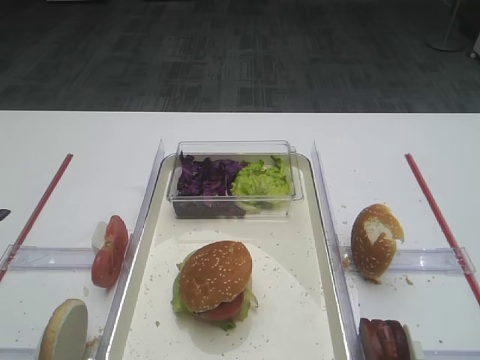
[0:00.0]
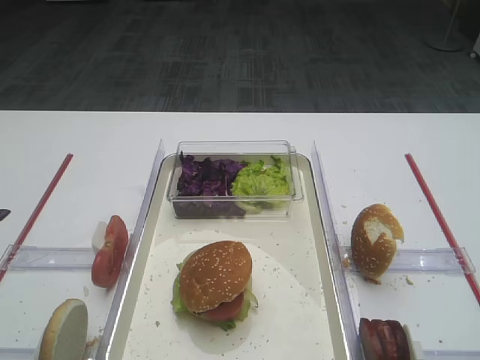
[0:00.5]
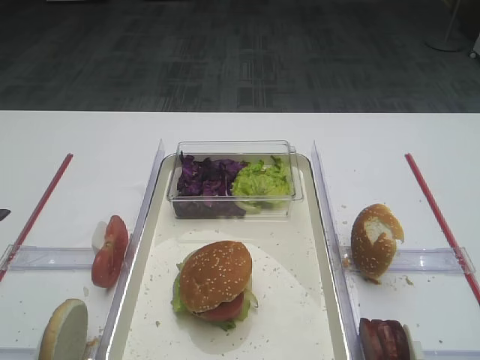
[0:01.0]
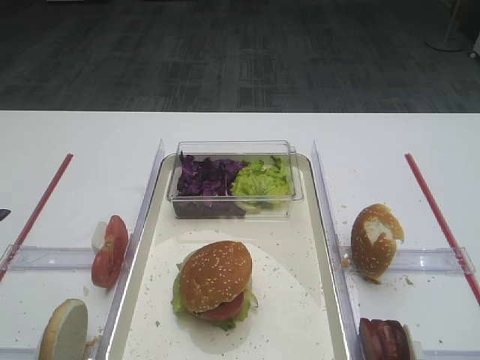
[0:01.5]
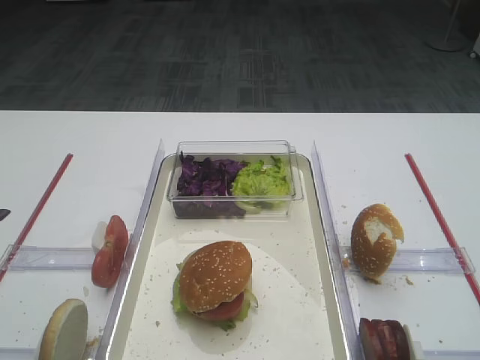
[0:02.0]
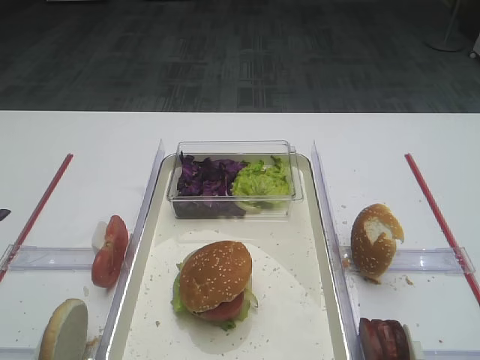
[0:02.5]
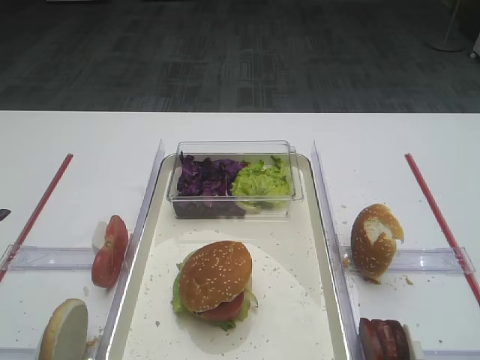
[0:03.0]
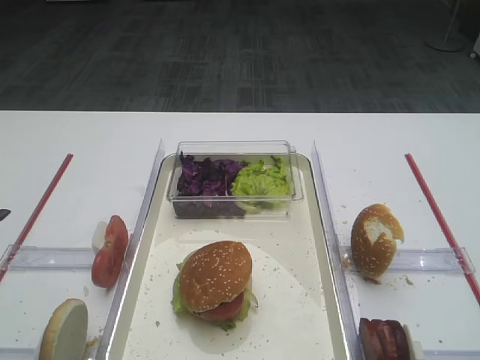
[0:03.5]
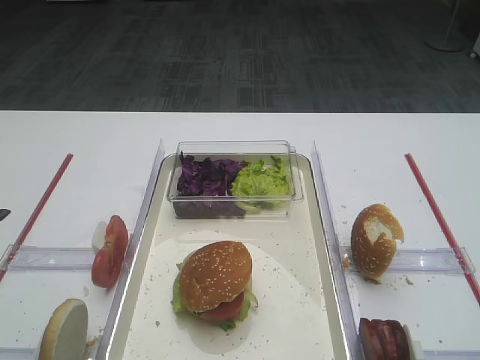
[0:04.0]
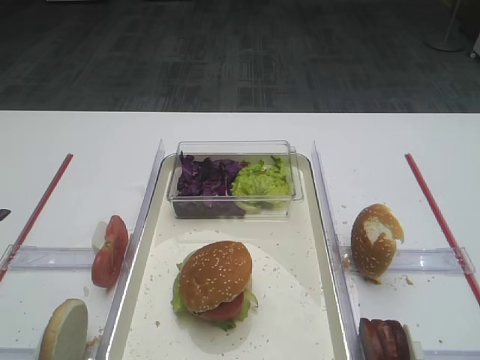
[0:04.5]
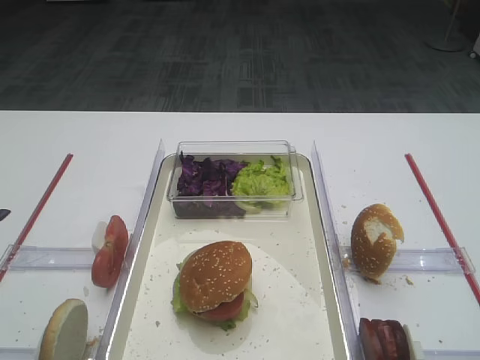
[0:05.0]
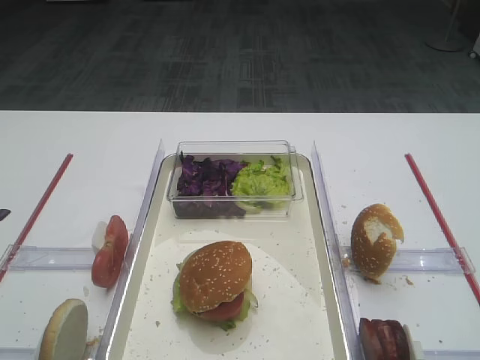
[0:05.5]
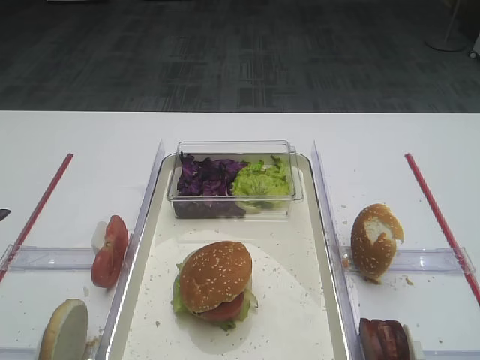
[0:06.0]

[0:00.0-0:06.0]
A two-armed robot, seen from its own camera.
0:00.0 to 0:06.0: Both grippers stay put.

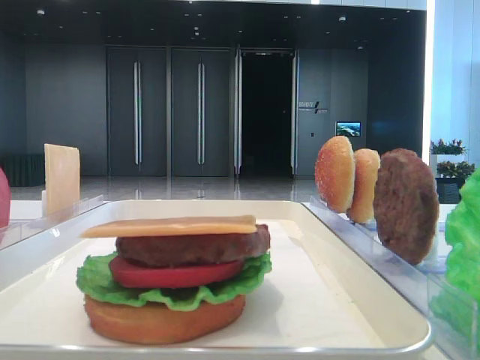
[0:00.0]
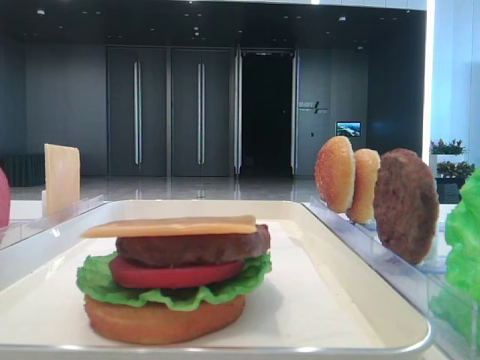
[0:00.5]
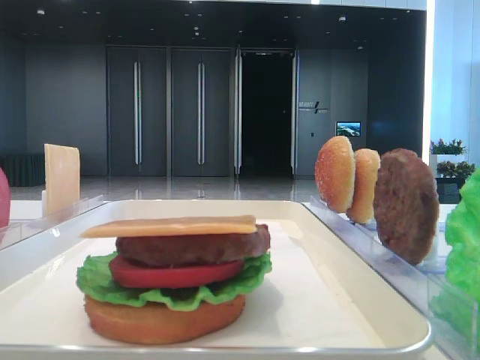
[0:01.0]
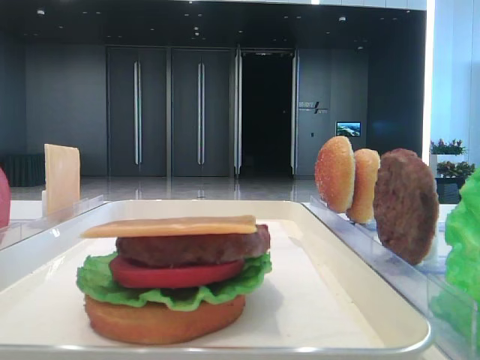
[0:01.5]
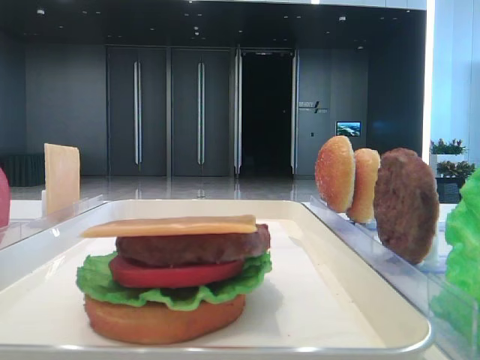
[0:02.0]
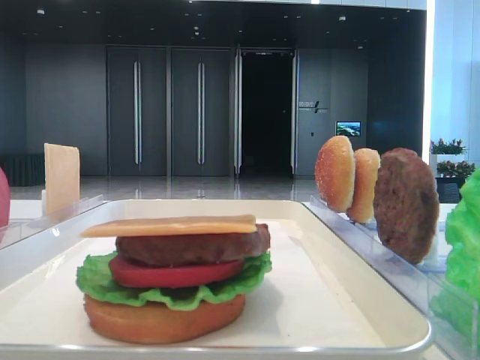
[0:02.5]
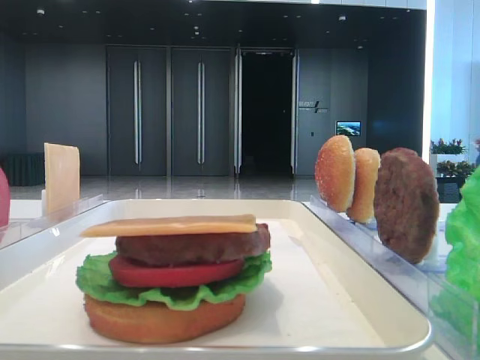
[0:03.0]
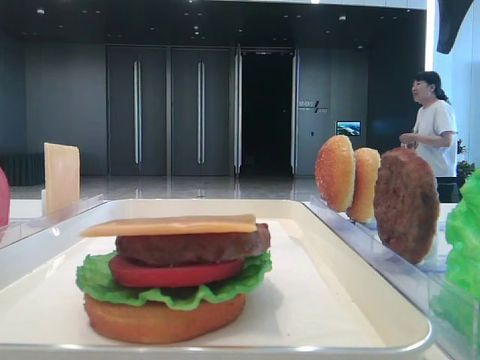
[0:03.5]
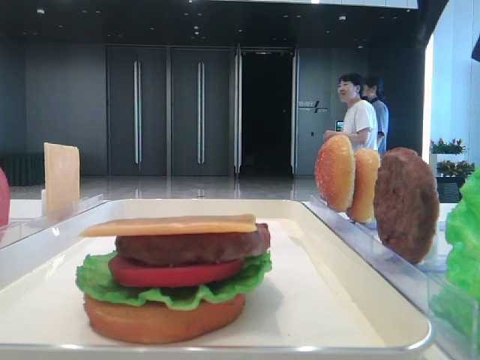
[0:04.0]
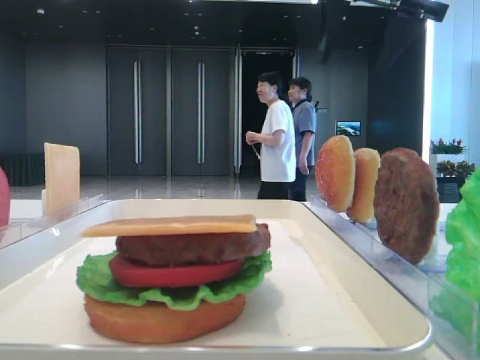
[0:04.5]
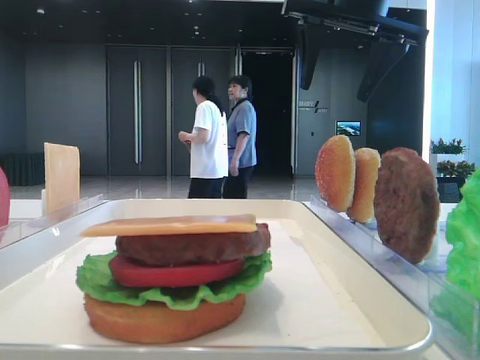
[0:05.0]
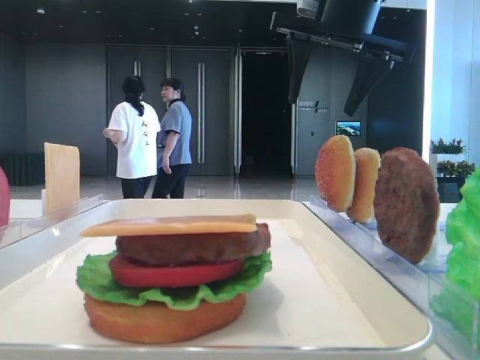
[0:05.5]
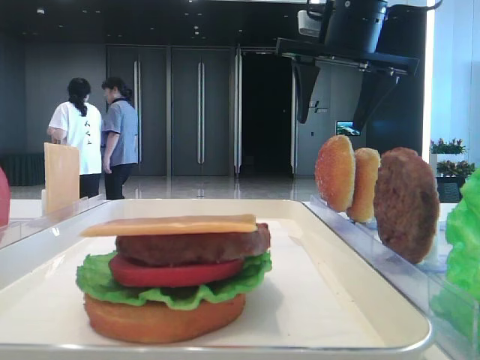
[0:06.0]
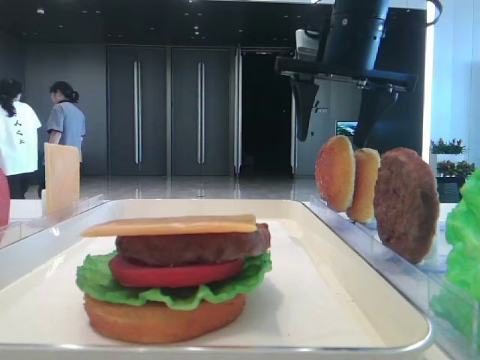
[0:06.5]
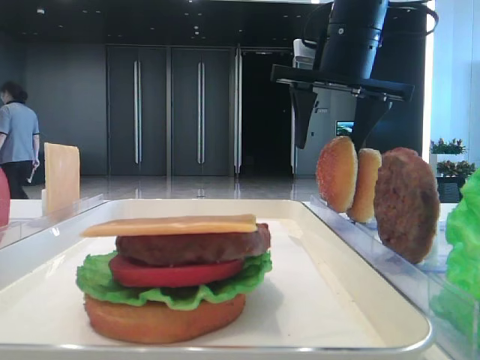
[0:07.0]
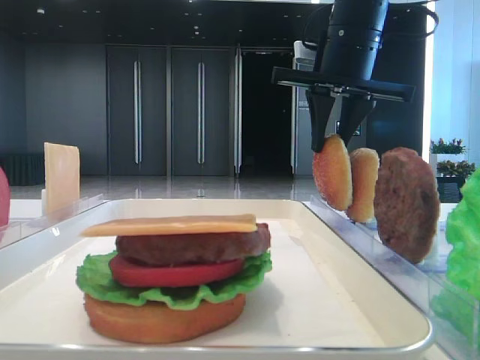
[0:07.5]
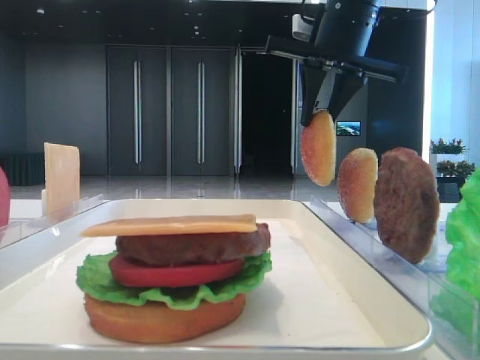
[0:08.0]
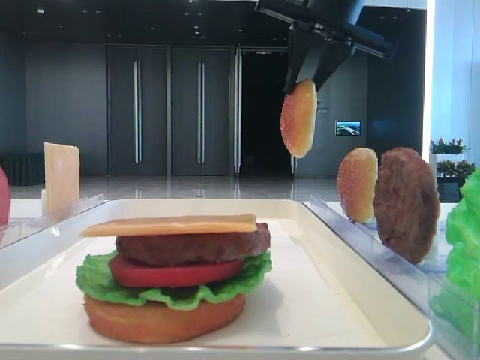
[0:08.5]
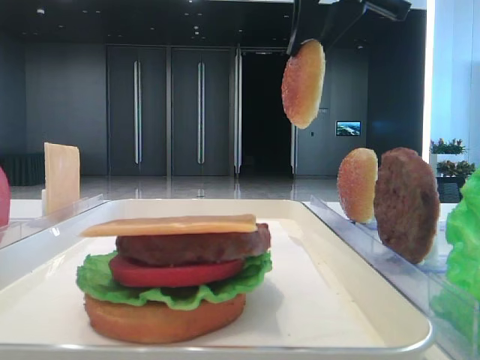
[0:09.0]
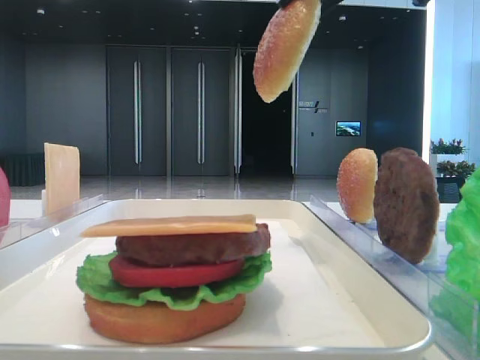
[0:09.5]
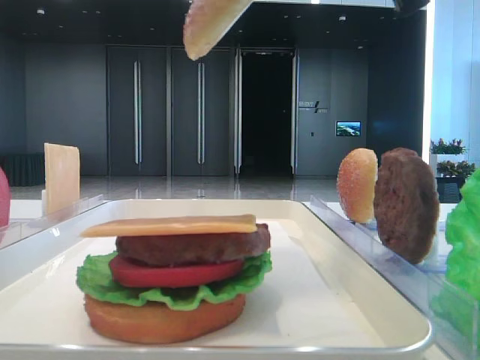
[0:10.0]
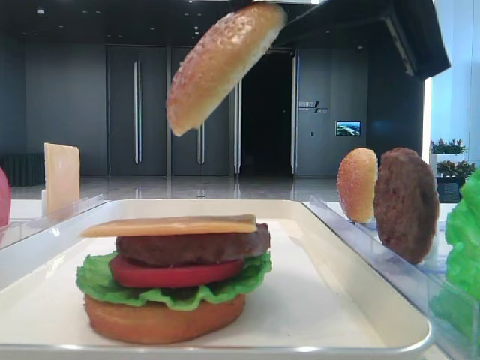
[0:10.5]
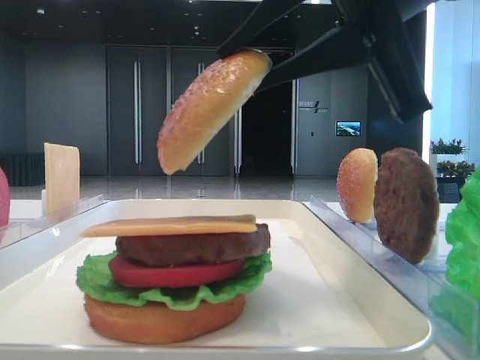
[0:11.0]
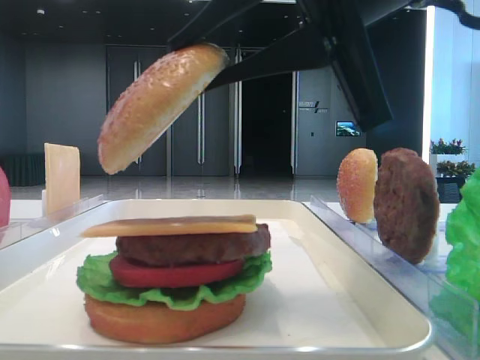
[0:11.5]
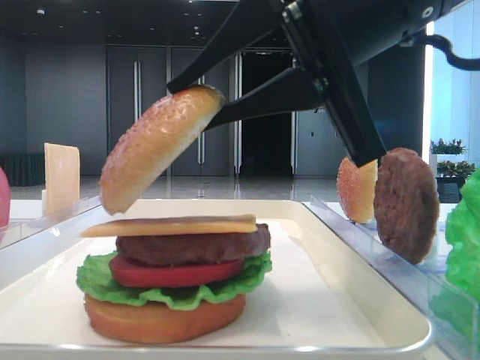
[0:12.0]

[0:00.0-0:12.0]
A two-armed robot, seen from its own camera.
Step, 0:00.0 to 0:07.5: Pick up the top bread slice with the right hand.
0:02.0 to 0:04.0: The right gripper goes approximately 35 cm forward.
0:04.0 to 0:06.0: The right gripper heads to the left and downward, covering approximately 15 cm.
0:06.0 to 0:08.0: The right gripper closes its fingers.
0:08.0 to 0:10.0: The right gripper is displaced backward by some 20 cm.
0:10.0 to 0:12.0: The right gripper goes some 10 cm downward.

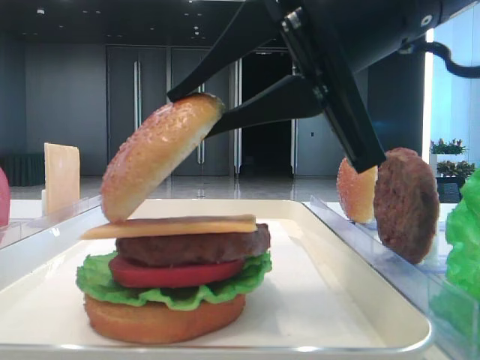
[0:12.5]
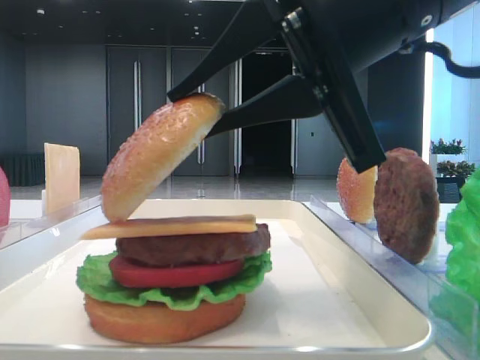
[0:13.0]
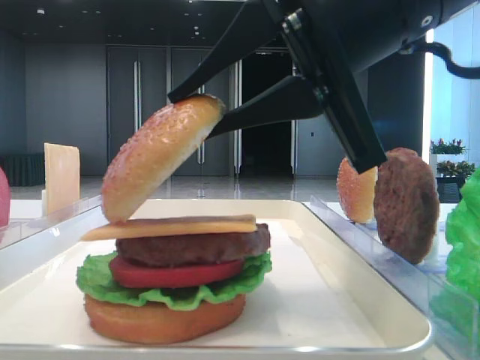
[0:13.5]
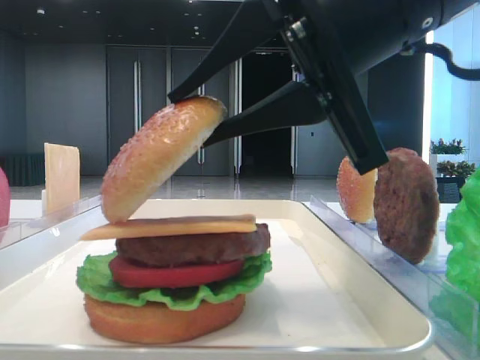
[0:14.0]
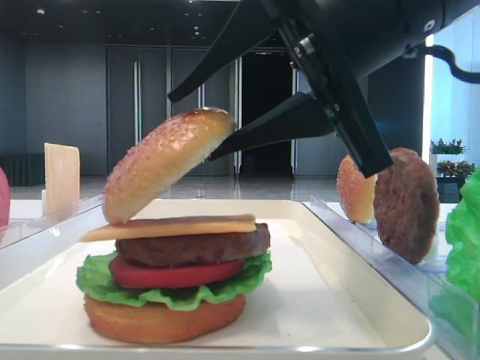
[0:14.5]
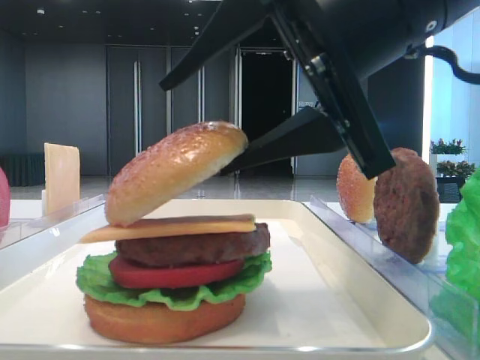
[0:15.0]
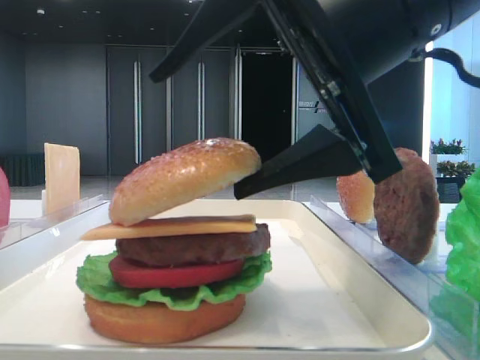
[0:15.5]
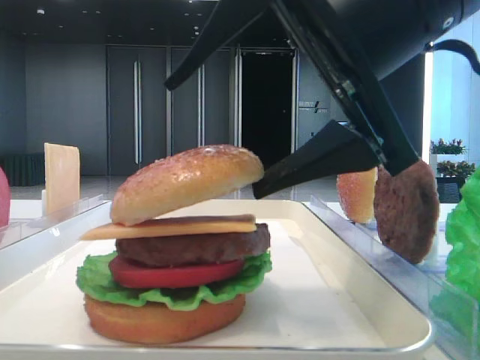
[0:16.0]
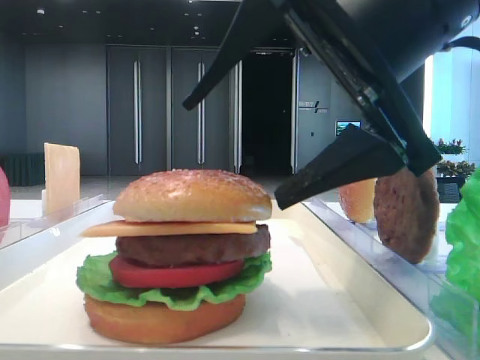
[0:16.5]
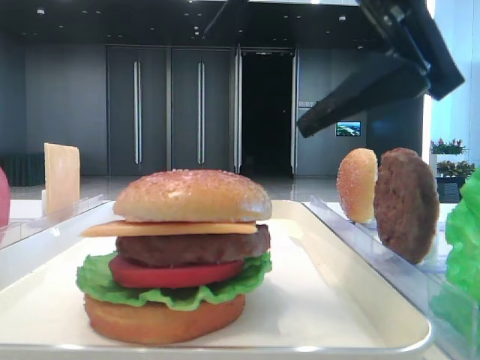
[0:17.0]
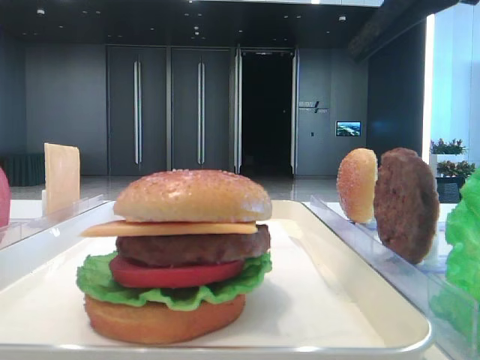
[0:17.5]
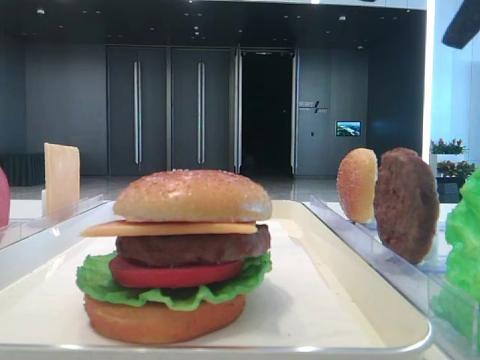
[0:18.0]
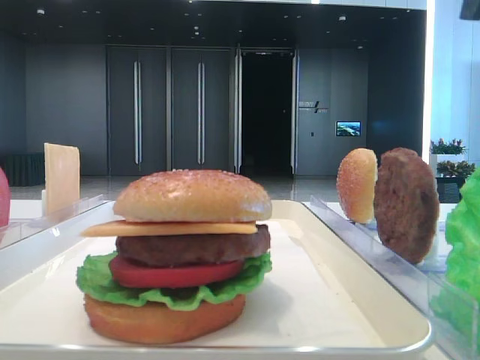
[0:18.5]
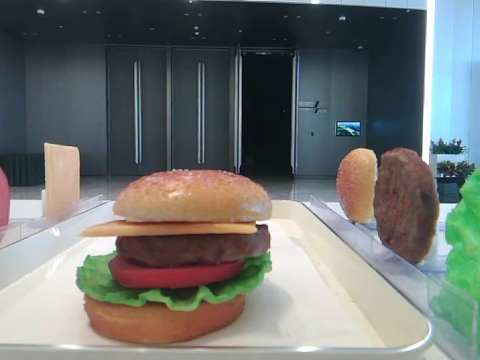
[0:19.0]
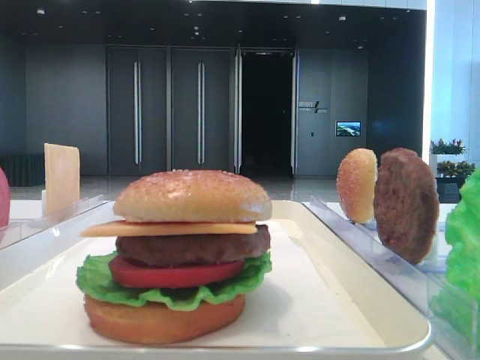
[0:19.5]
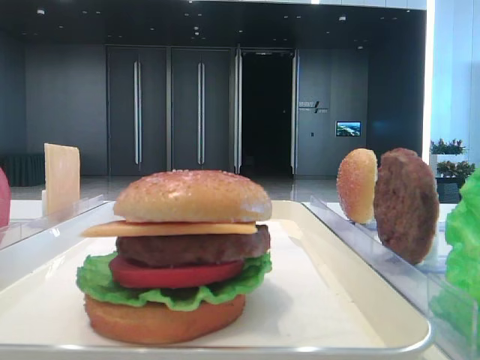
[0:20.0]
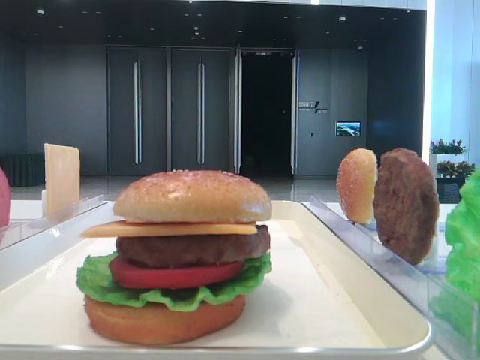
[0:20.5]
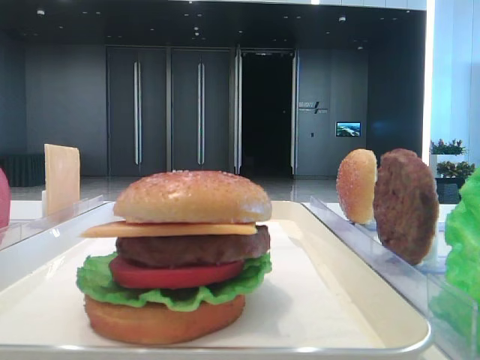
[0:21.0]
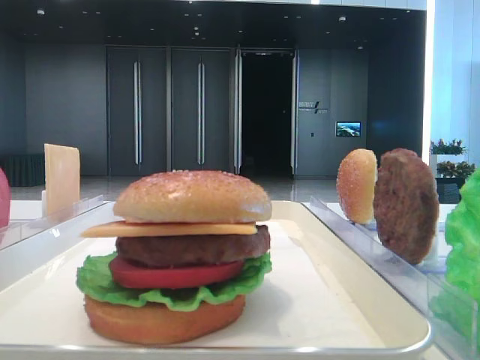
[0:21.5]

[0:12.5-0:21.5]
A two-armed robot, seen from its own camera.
Step, 0:12.5 to 0:16.0: Place the top bread slice on the cheese with the right hand.
0:12.5 to 0:14.5: Neither gripper changes place.
0:14.5 to 0:17.0: The right gripper opens its fingers.
0:17.0 to 0:19.5: The right gripper shifts about 20 cm to the right and upward.
